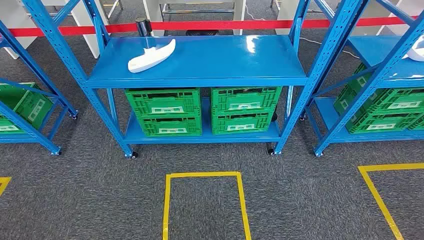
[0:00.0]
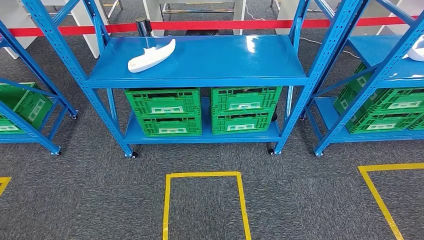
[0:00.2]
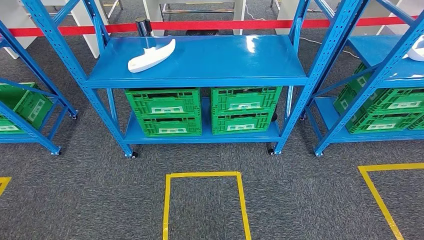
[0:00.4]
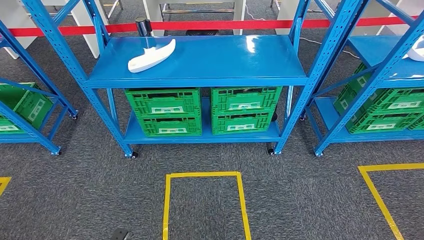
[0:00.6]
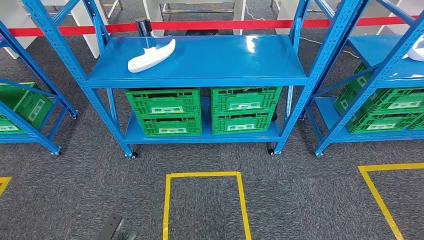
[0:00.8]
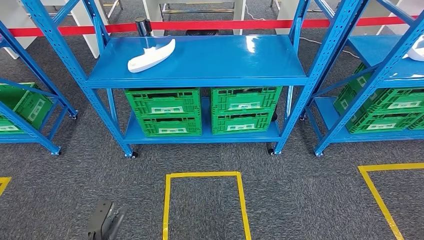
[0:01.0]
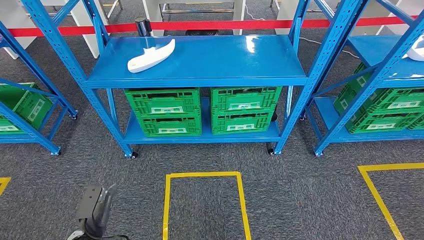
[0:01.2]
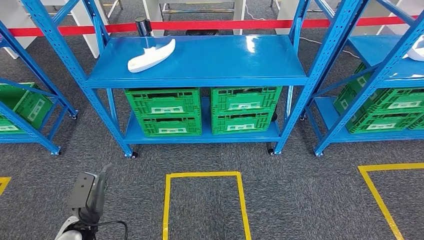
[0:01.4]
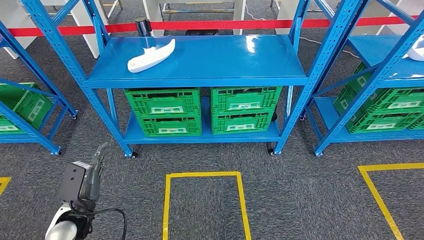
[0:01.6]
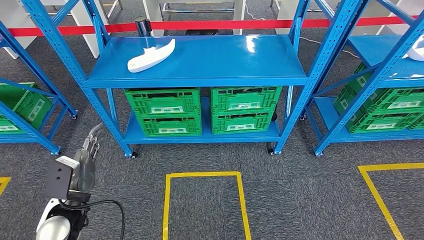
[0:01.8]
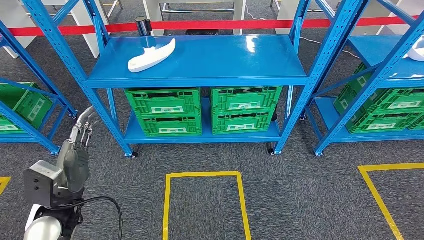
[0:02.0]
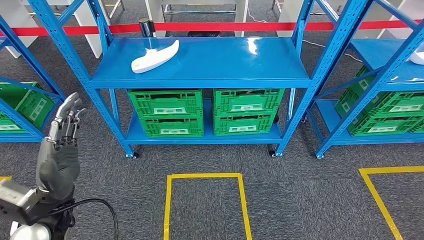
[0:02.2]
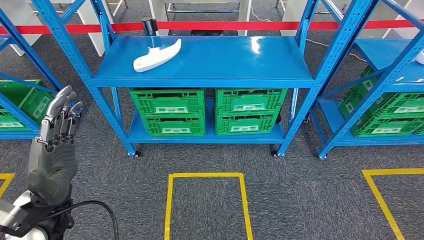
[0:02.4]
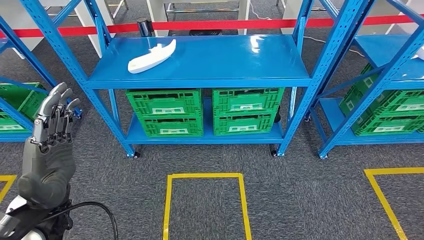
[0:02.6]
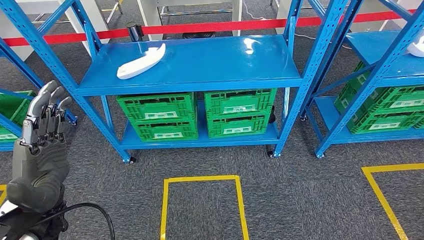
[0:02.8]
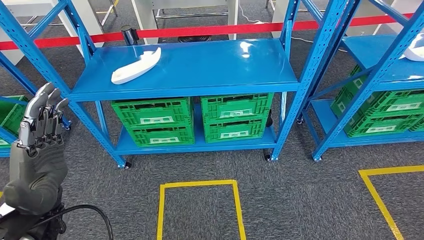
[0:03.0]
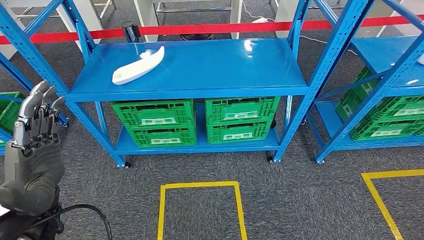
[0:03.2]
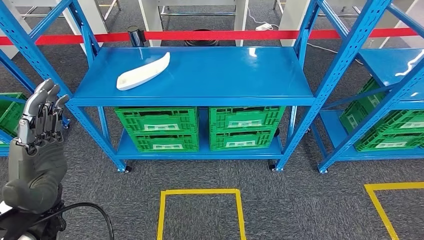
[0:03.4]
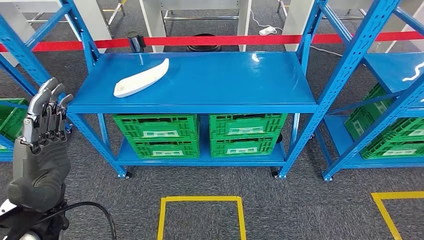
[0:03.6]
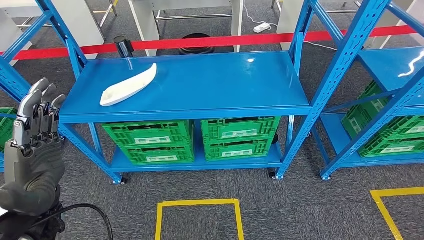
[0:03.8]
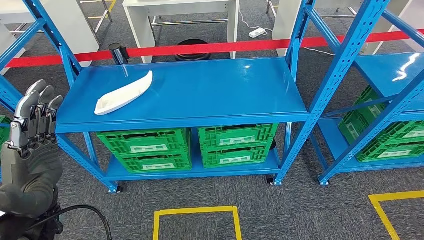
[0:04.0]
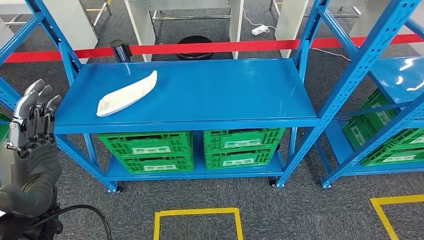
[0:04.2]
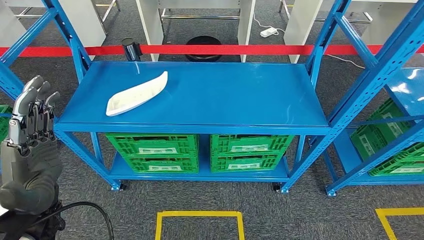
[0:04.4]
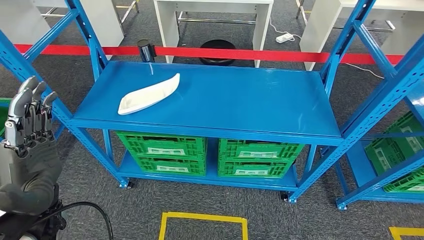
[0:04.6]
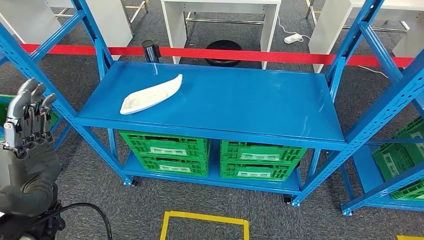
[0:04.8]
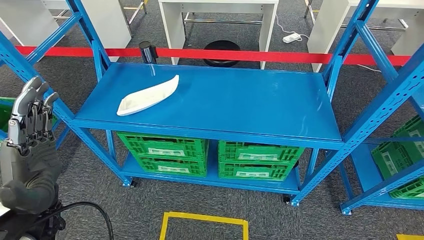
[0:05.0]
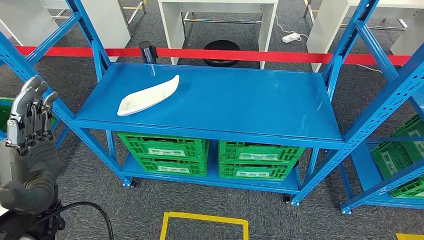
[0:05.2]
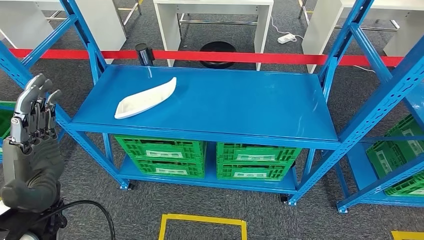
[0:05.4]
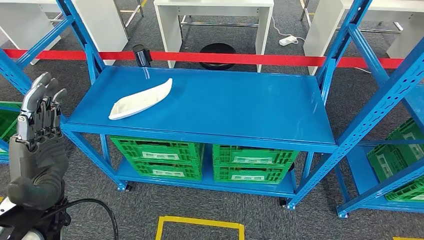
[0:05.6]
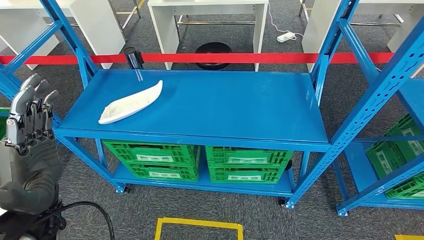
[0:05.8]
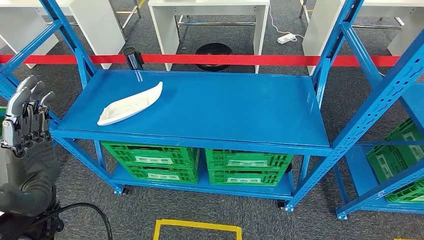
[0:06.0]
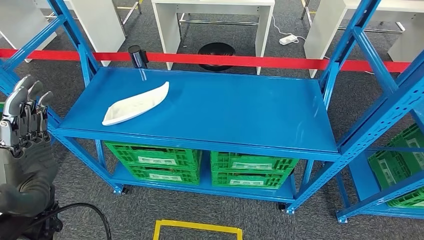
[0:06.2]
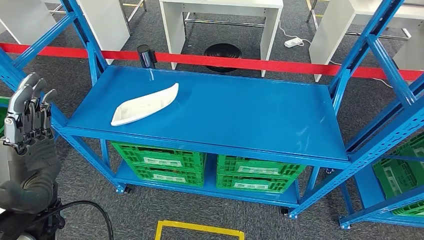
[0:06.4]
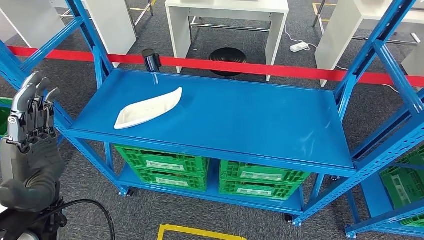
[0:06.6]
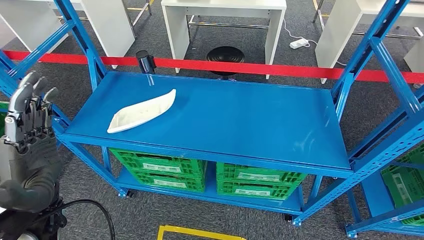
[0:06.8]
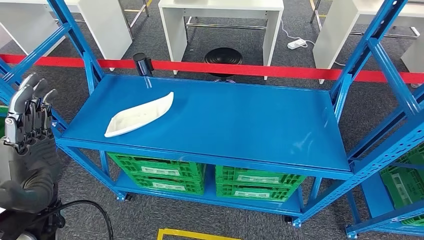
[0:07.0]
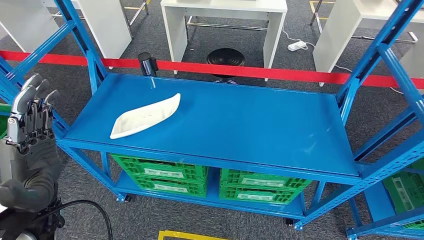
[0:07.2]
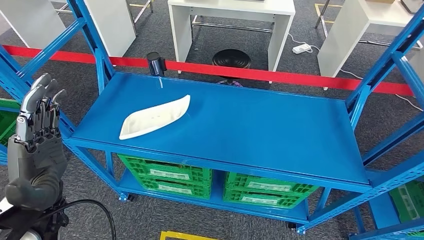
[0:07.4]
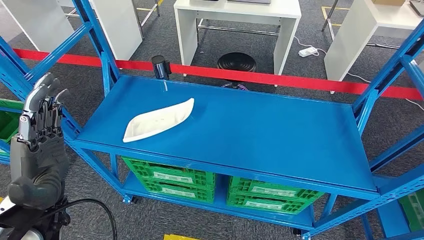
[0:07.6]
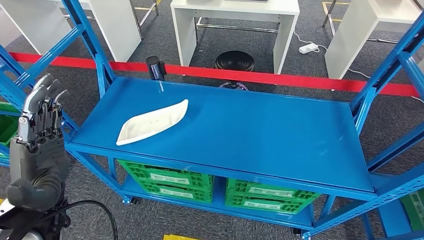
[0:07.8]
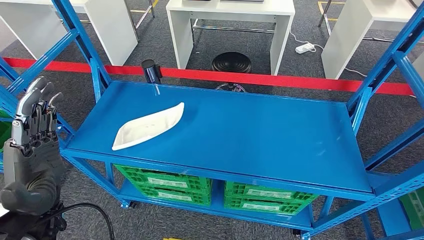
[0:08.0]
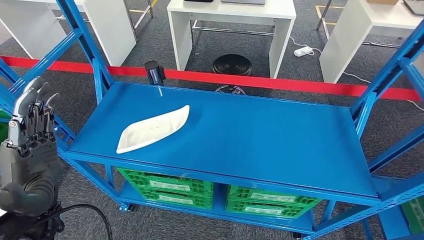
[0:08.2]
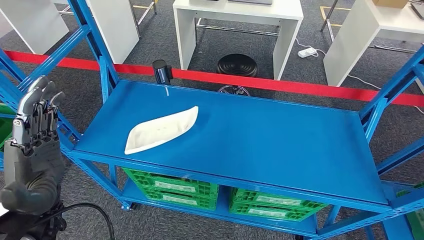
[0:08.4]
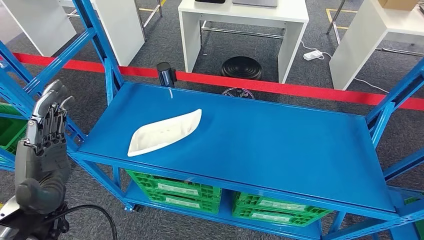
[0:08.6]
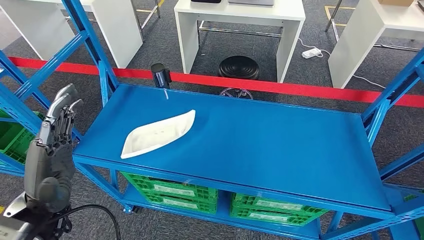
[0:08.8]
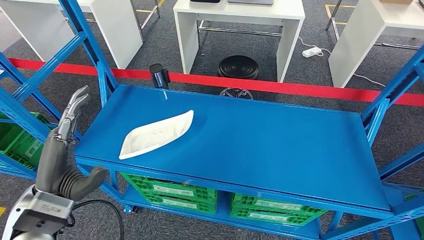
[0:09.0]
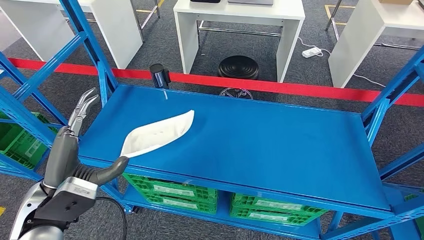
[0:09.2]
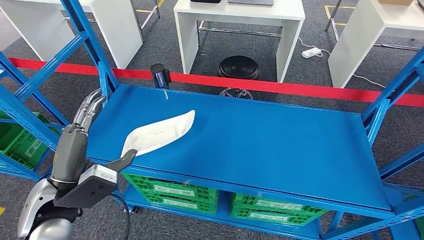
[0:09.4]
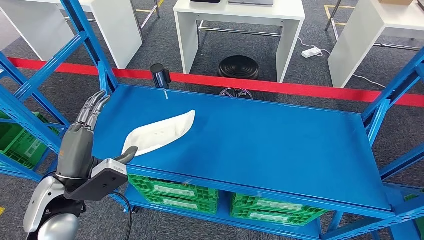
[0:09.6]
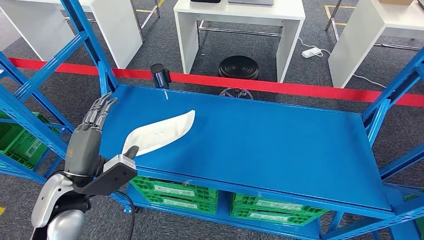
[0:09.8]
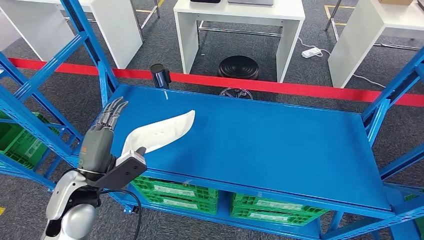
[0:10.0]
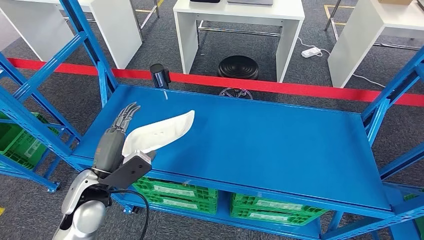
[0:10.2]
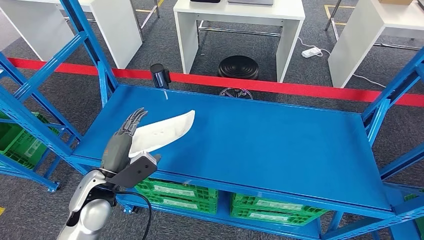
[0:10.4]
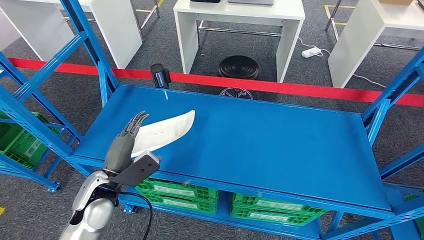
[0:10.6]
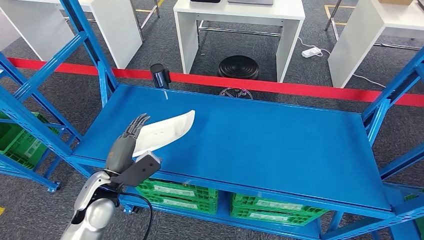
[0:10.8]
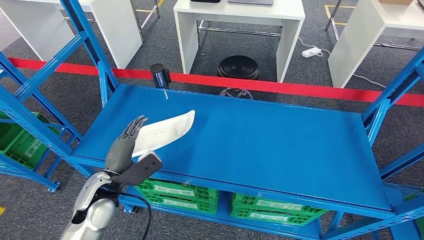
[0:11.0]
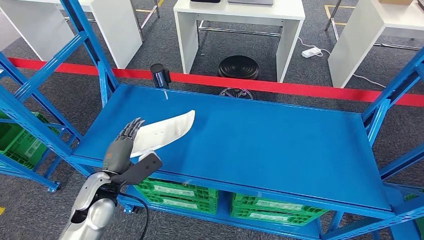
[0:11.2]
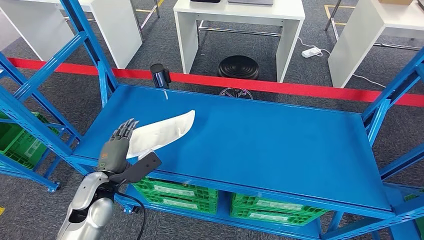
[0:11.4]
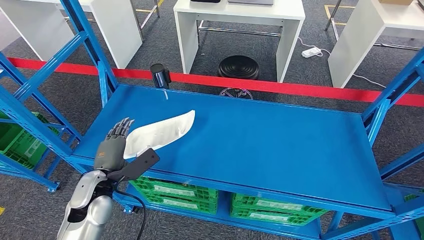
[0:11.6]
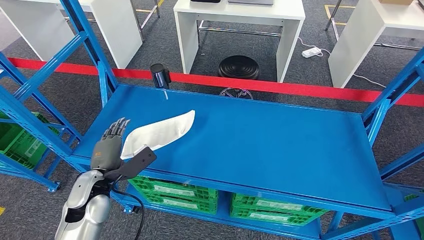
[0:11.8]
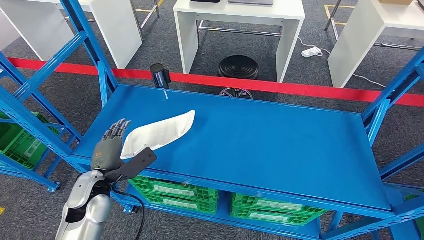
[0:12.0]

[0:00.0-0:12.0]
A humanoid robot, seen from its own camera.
0:09.0 to 0:10.4: The left hand travels downward and forward by roughly 10 cm.

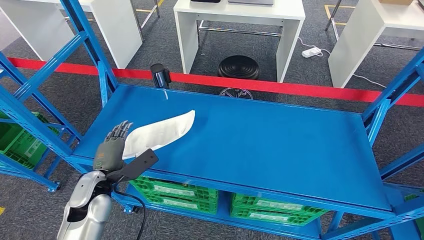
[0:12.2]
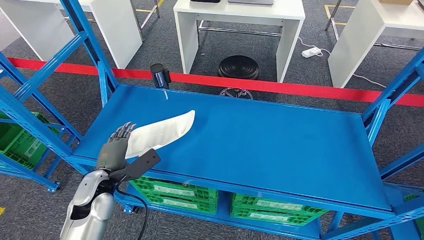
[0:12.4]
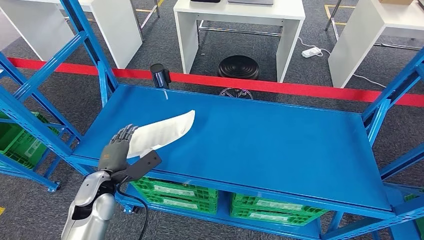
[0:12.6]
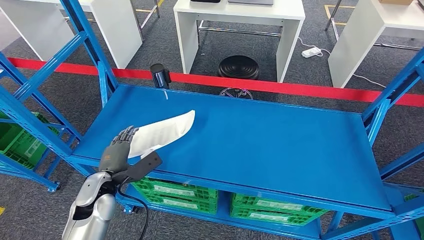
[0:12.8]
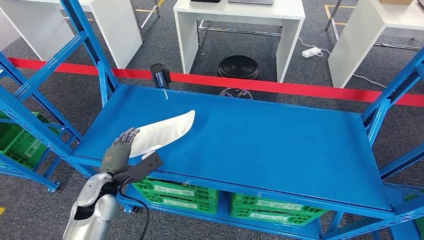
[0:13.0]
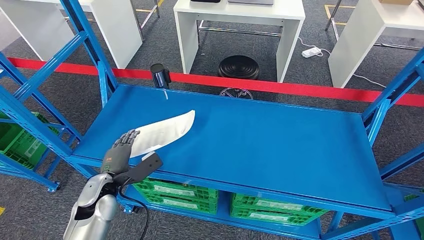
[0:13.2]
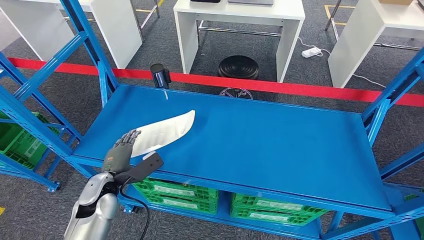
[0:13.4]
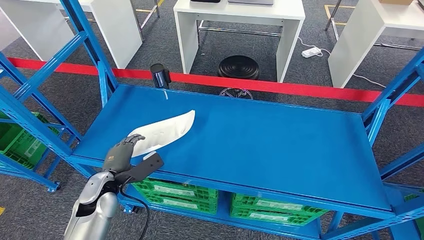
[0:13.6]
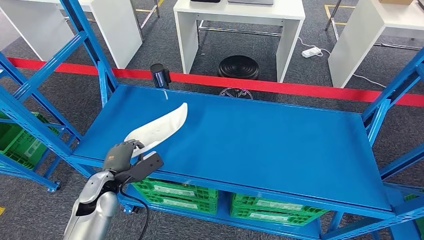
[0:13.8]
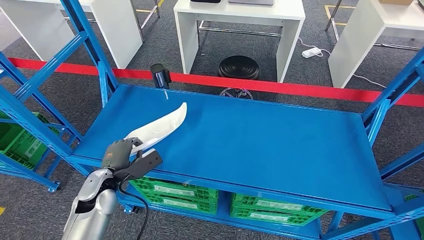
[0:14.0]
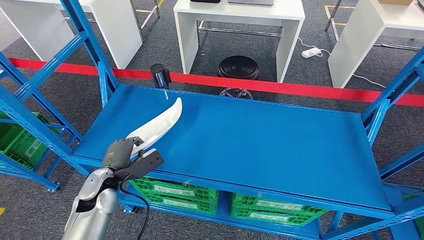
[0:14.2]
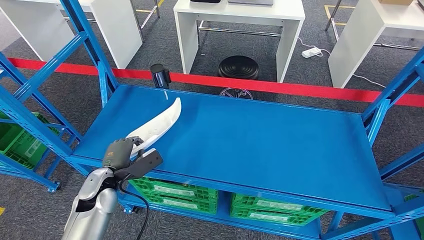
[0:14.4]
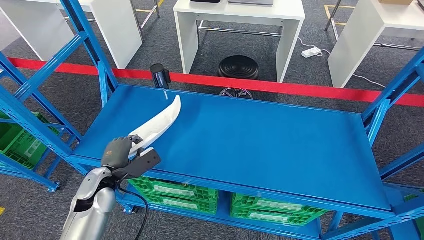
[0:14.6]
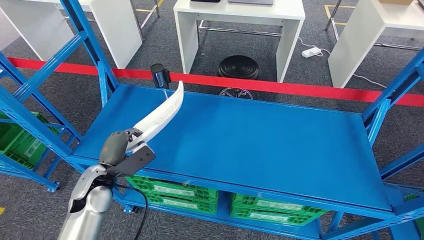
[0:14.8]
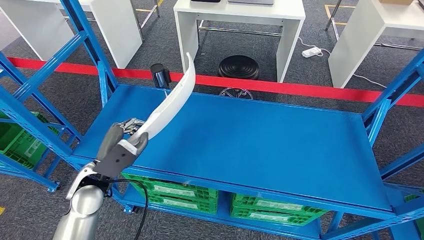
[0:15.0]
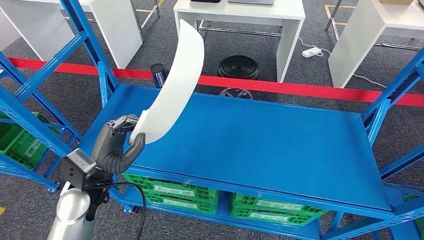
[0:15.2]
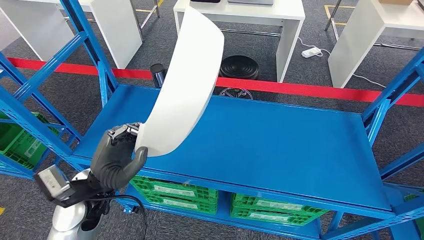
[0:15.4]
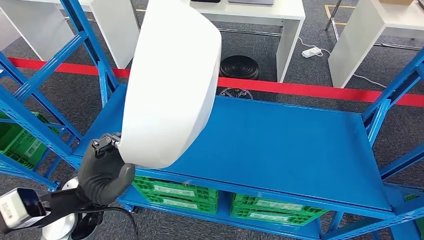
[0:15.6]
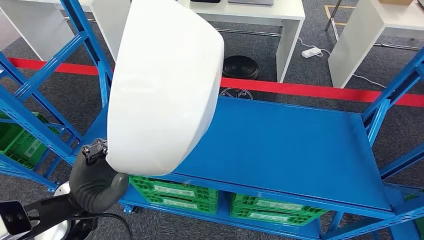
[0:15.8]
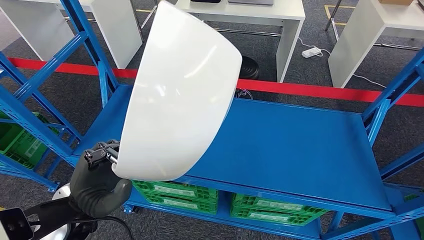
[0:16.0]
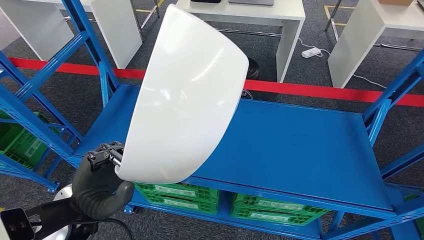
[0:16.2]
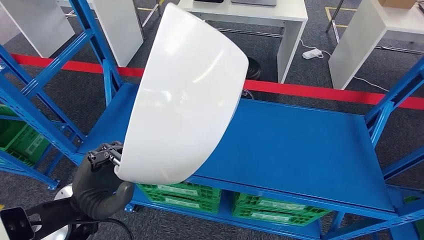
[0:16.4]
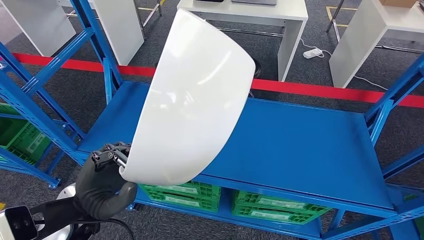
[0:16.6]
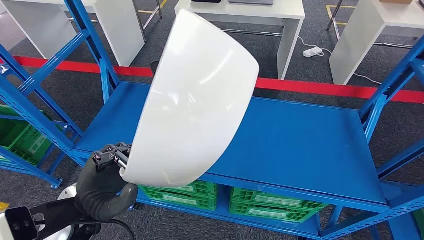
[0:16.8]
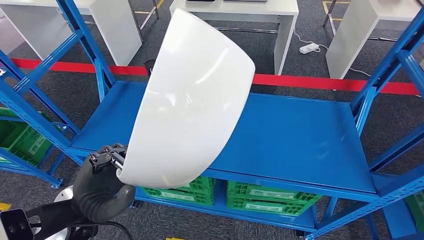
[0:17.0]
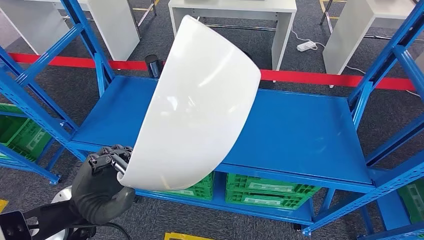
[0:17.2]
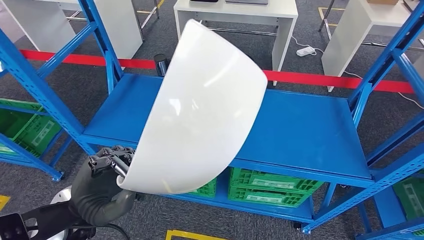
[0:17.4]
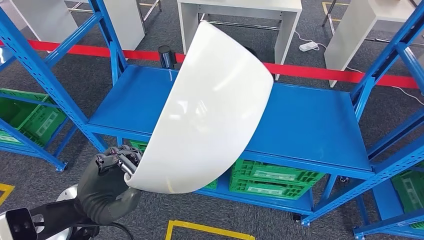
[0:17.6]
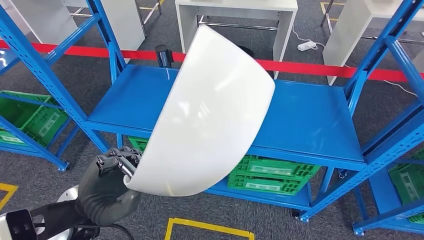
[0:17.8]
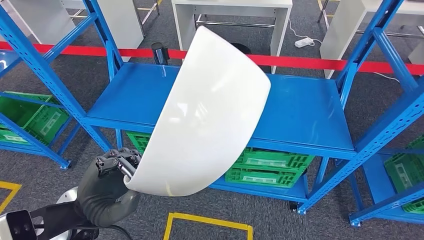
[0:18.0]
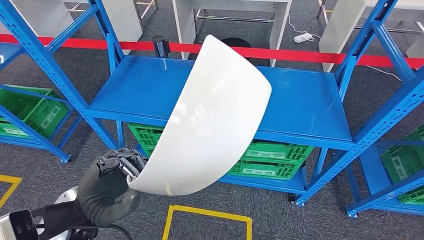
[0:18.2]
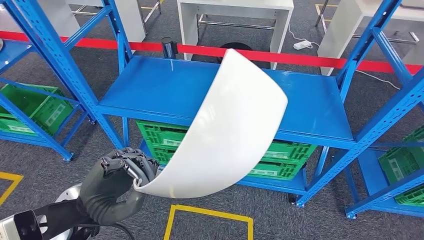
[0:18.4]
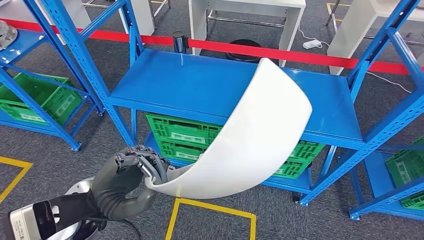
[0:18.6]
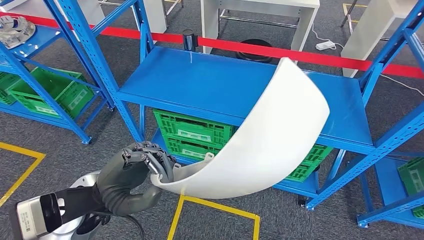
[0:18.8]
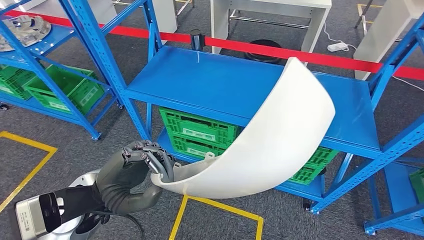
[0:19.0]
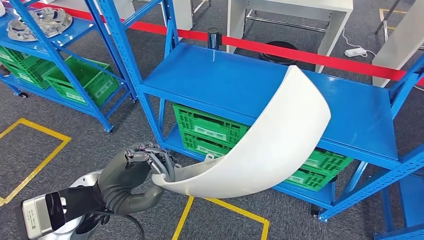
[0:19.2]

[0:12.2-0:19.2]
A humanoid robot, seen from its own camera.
Step, 0:12.2 to 0:15.2: Pick up the small component from the shelf.
0:12.2 to 0:13.6: There are only small adjustments of the hands.
0:13.6 to 0:15.0: The left hand moves upward, about 5 cm.
